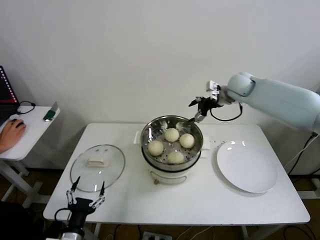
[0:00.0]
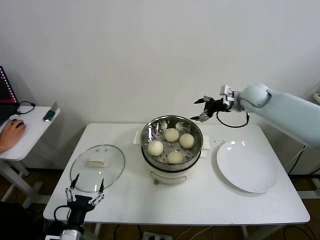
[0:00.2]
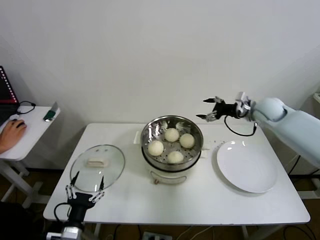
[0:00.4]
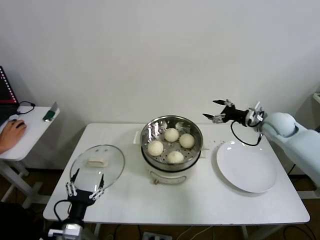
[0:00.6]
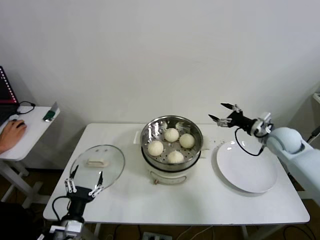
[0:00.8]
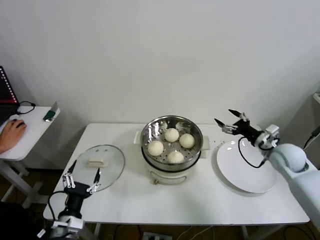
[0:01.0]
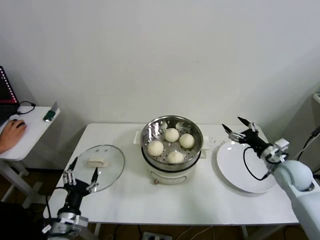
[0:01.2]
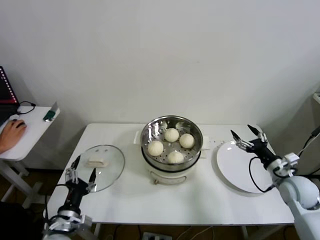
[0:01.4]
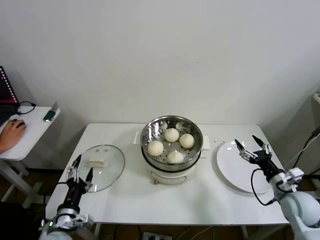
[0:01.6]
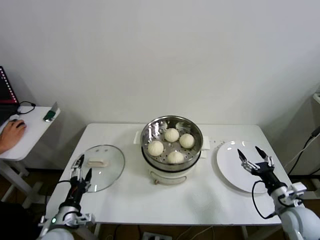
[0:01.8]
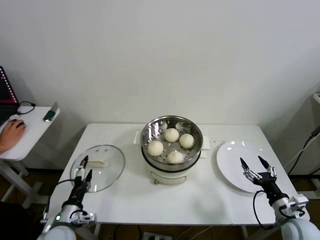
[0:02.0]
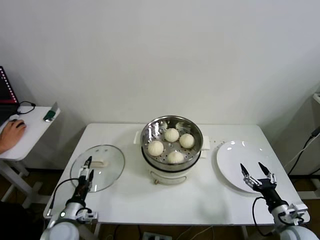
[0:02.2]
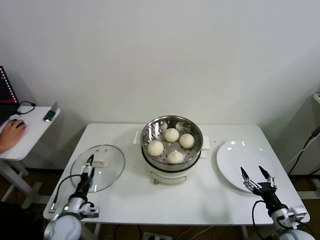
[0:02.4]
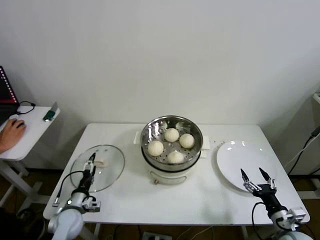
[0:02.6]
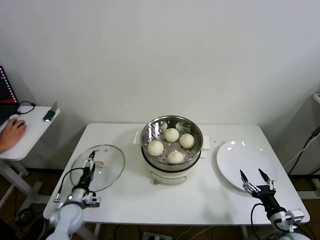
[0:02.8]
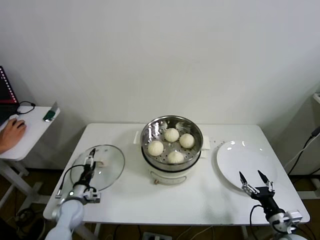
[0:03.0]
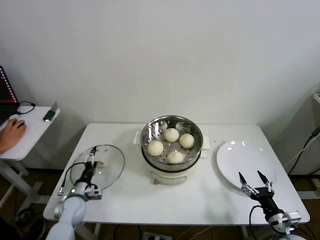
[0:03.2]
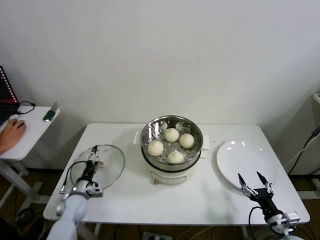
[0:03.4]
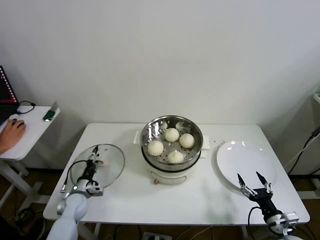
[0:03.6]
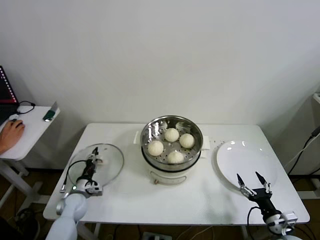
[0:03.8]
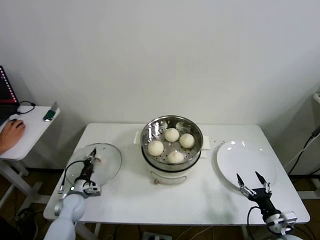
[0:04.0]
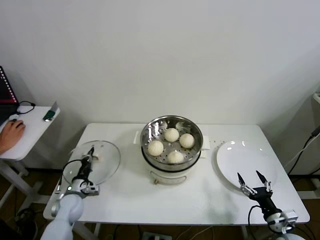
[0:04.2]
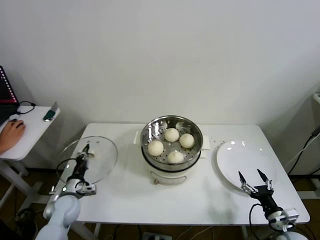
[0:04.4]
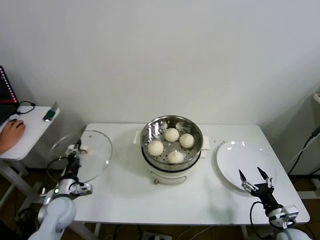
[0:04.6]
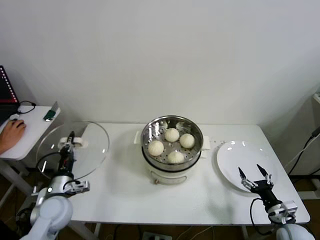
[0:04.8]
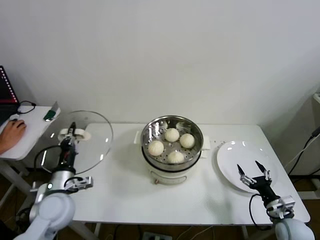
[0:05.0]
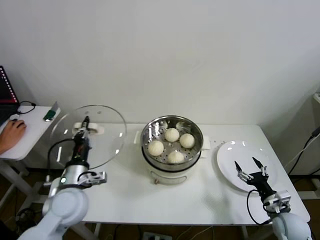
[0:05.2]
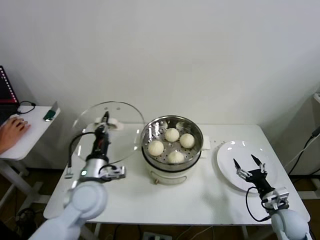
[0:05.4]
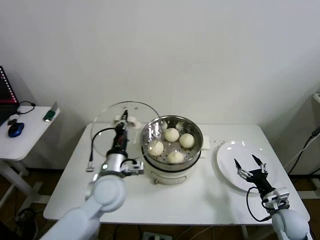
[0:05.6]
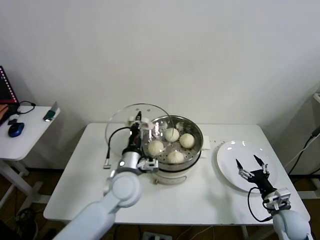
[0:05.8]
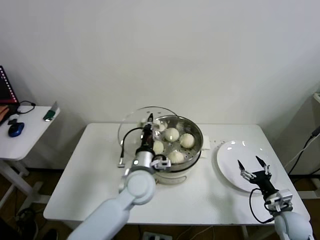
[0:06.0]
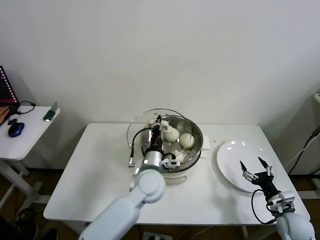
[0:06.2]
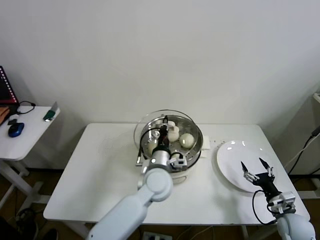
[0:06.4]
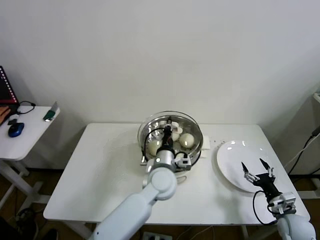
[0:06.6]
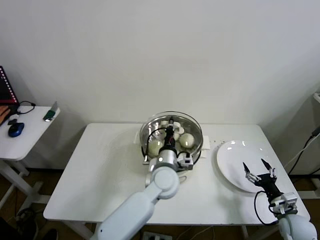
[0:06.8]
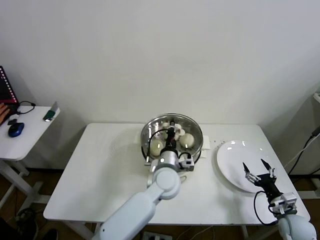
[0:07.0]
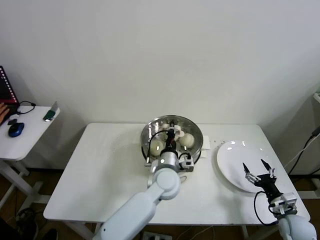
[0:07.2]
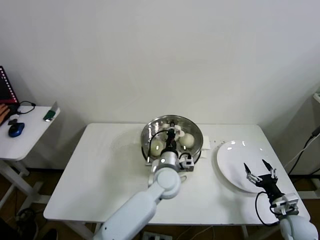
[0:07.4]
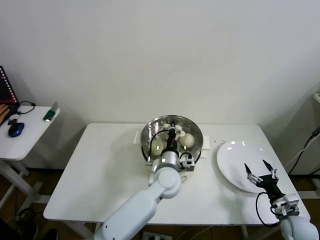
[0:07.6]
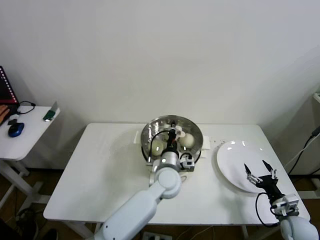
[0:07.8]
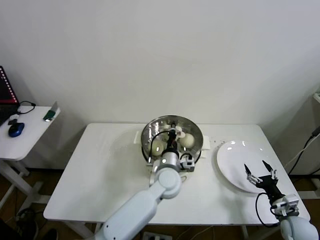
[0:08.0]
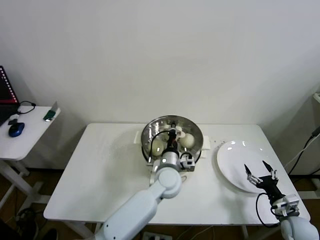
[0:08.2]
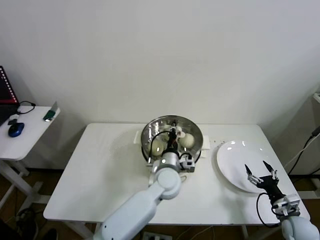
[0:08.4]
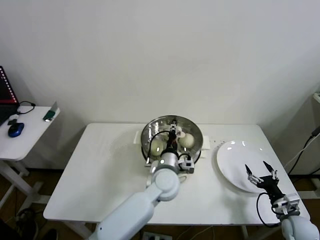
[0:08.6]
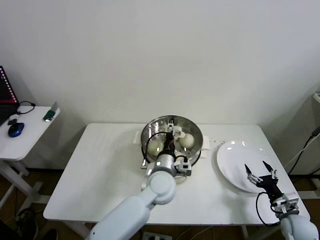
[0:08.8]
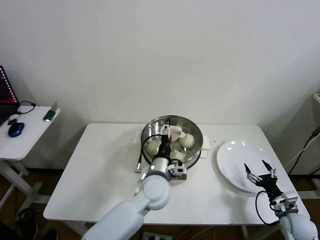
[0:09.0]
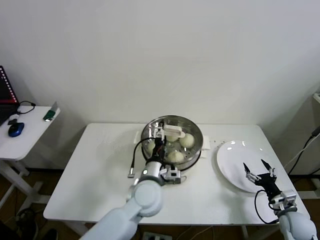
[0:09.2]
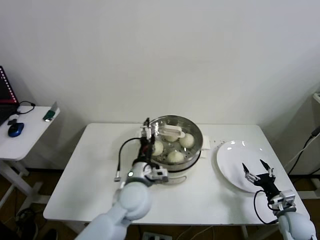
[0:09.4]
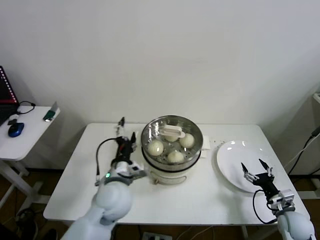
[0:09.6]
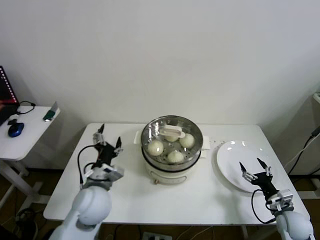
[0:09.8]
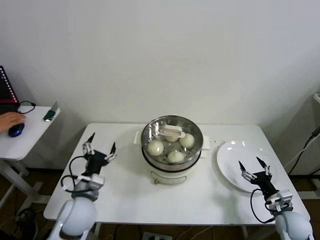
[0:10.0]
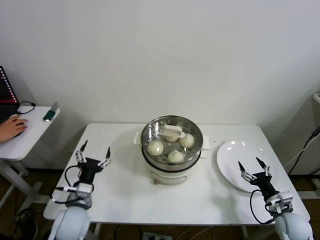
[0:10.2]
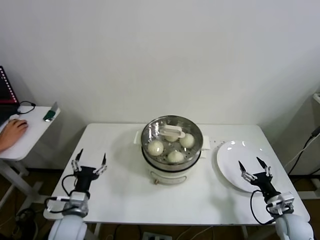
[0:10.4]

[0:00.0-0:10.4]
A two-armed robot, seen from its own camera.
Step, 0:00.0 to 0:04.0: Grasp the pot lid with left gripper.
Step, 0:04.2 to 0:09.0: Place the pot lid on the steamer with left gripper.
0:00.0 to 0:01.4: The right gripper is displaced backward, downward and to the right by about 35 cm, while the left gripper shifts approximately 5 cm forward.
0:01.4 to 0:03.0: The left gripper moves forward and downward, approximately 15 cm; the right gripper moves backward and downward, roughly 20 cm.
0:03.0 to 0:04.4: The left gripper closes up.
0:04.4 to 0:06.0: The right gripper travels forward by approximately 5 cm, while the left gripper travels to the right and upward by about 30 cm.
0:06.0 to 0:07.4: The left gripper is displaced to the right by some 10 cm.
0:07.4 to 0:09.0: The left gripper opens its fingers.
0:09.0 to 0:10.4: The left gripper travels to the left by approximately 25 cm.
